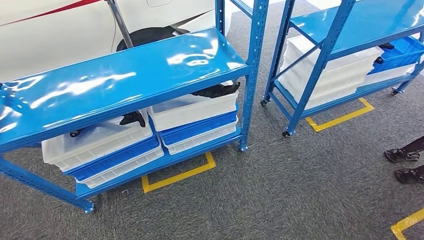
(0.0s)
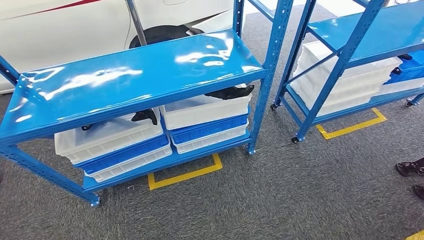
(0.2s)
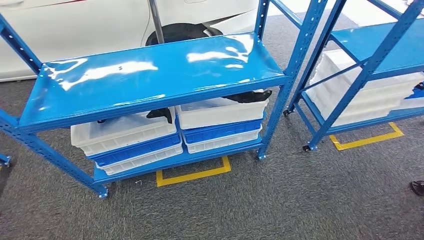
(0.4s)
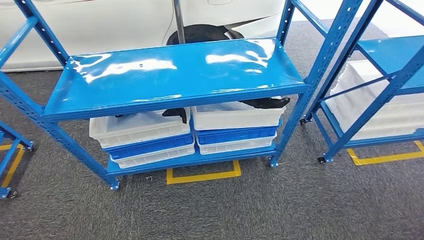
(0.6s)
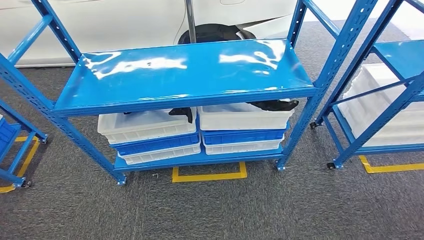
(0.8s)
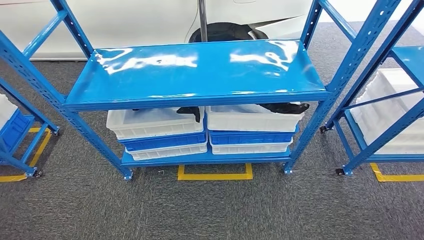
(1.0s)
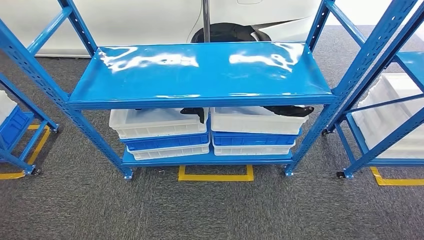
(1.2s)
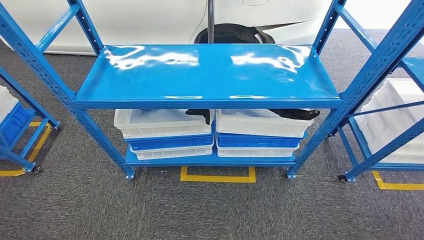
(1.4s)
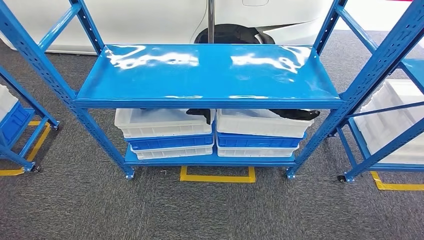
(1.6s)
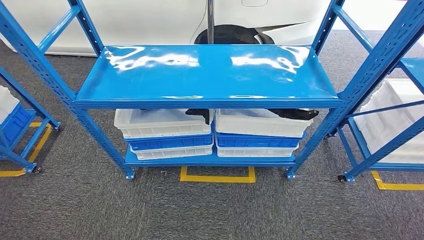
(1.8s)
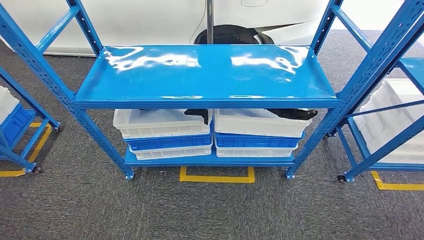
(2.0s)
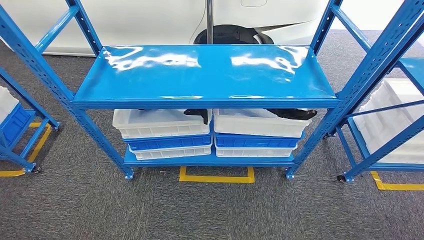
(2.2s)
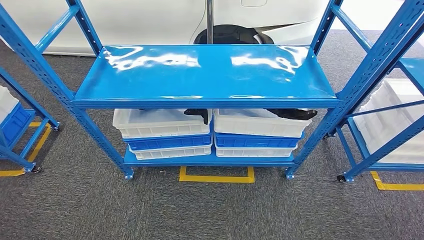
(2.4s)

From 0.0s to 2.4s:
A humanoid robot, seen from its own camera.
Step, from 0.0s to 2.4s: Move to the initial position of the shelf.
